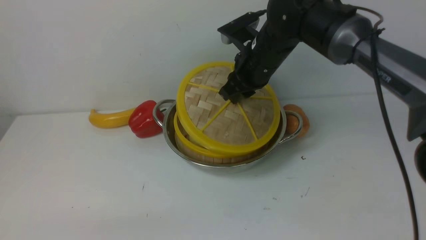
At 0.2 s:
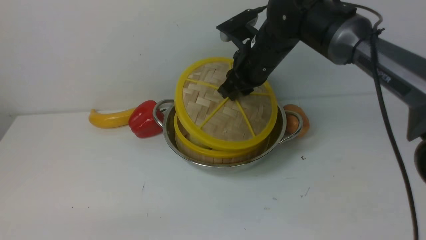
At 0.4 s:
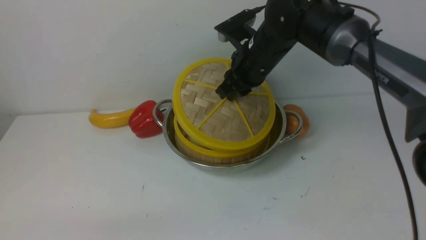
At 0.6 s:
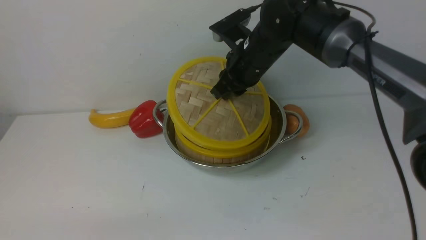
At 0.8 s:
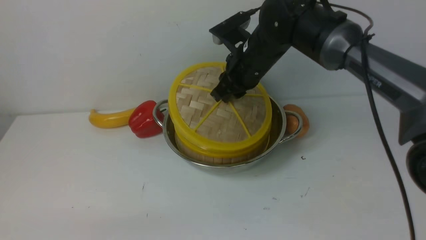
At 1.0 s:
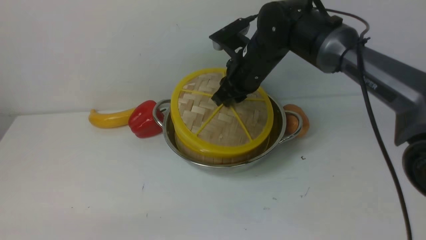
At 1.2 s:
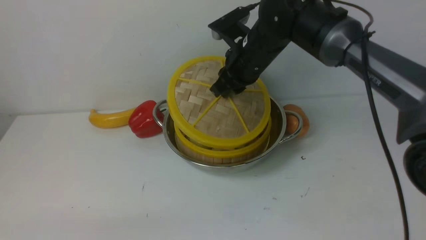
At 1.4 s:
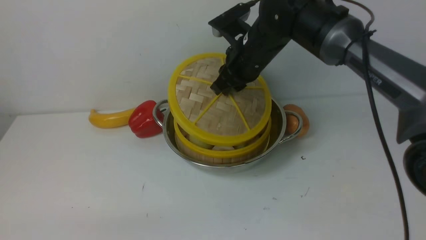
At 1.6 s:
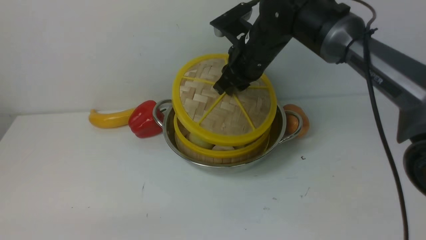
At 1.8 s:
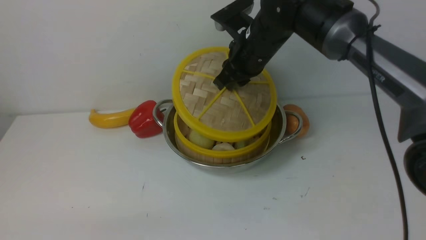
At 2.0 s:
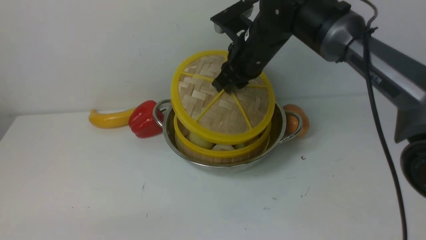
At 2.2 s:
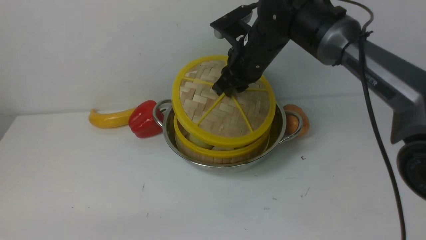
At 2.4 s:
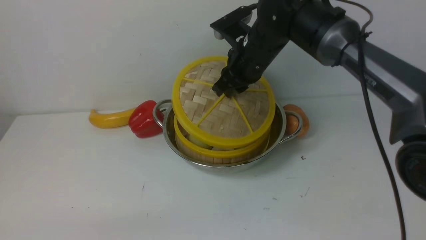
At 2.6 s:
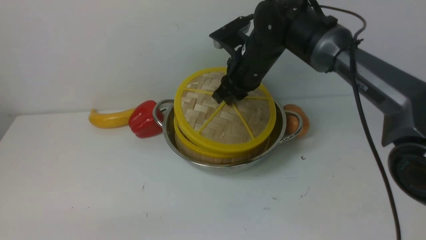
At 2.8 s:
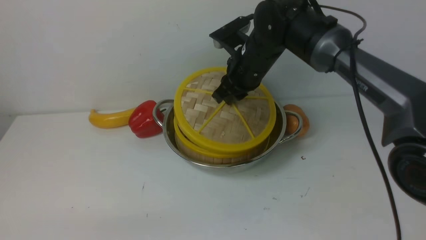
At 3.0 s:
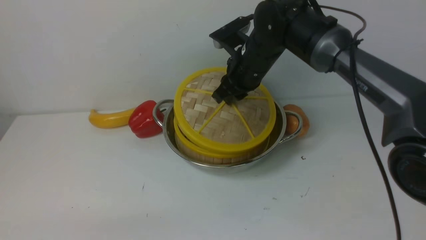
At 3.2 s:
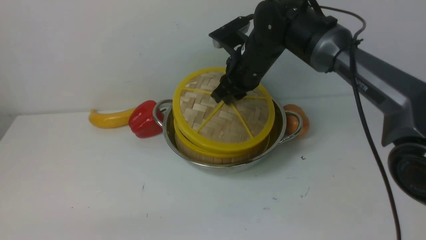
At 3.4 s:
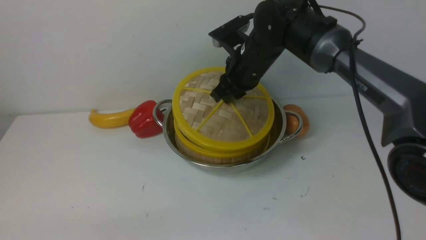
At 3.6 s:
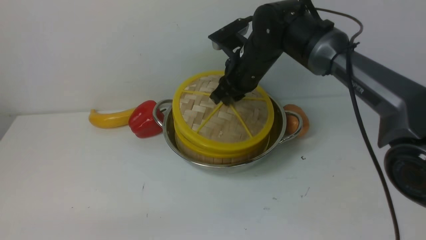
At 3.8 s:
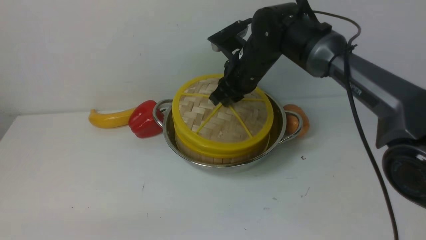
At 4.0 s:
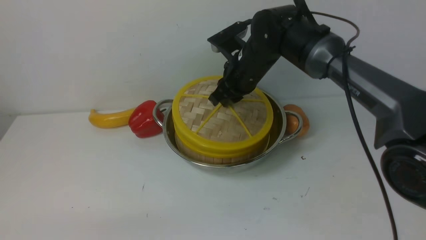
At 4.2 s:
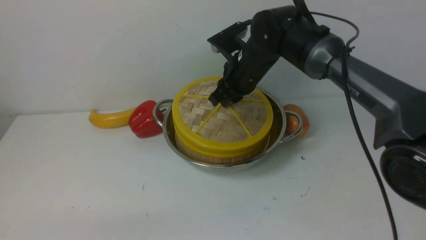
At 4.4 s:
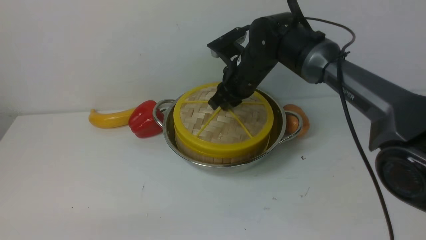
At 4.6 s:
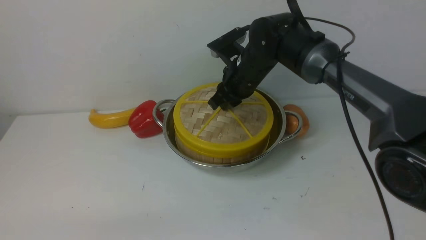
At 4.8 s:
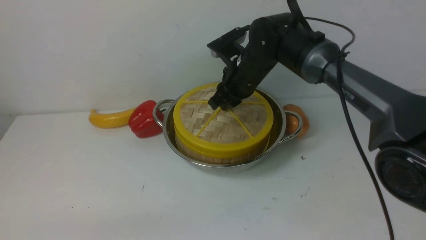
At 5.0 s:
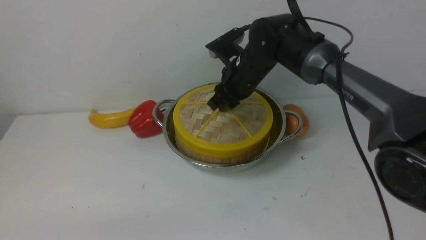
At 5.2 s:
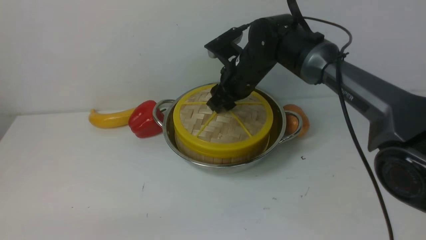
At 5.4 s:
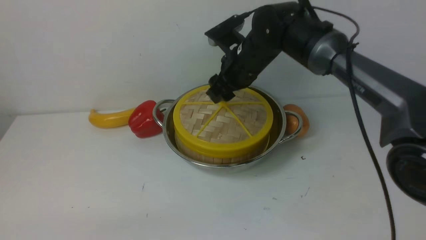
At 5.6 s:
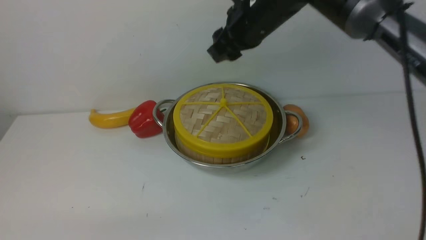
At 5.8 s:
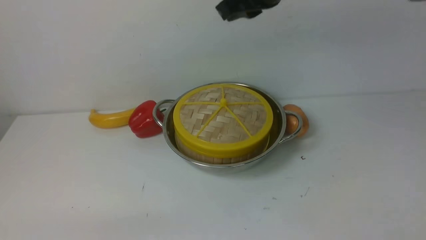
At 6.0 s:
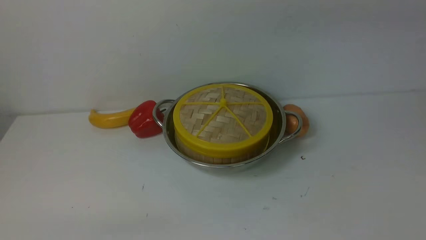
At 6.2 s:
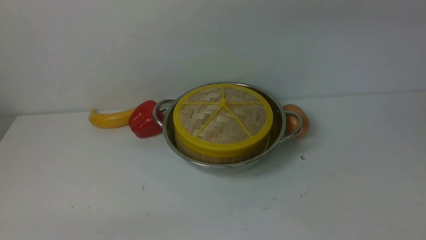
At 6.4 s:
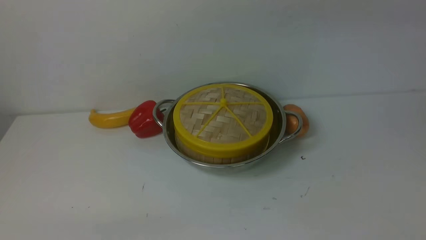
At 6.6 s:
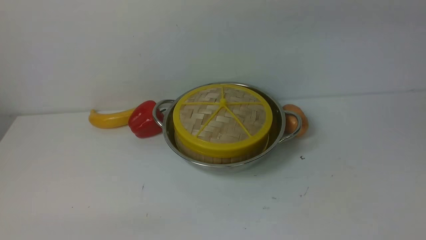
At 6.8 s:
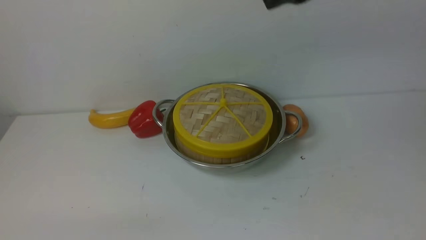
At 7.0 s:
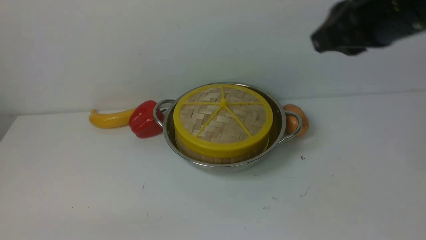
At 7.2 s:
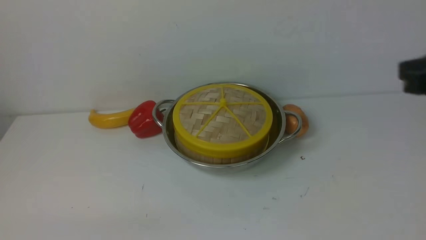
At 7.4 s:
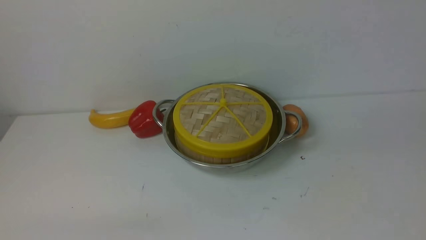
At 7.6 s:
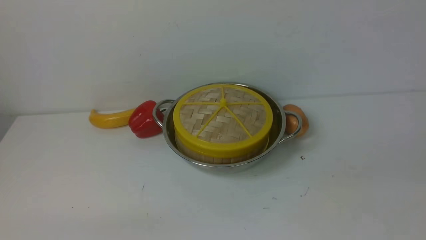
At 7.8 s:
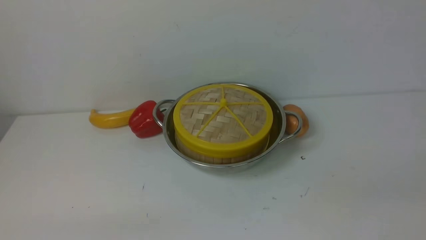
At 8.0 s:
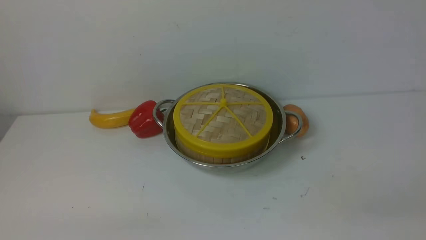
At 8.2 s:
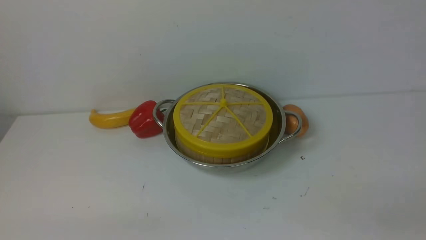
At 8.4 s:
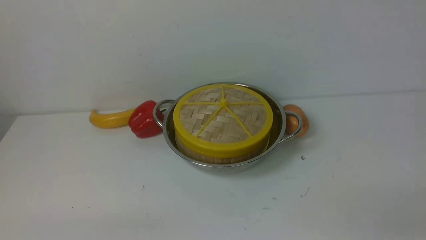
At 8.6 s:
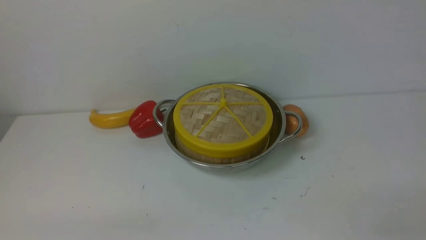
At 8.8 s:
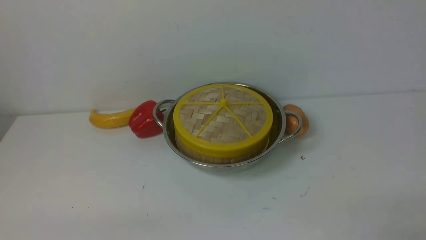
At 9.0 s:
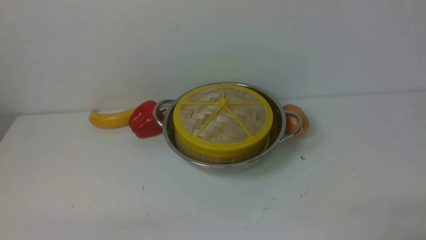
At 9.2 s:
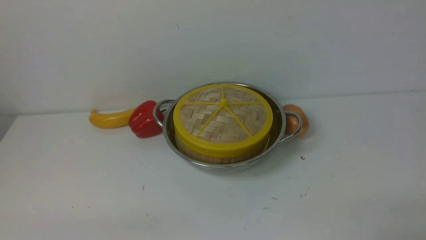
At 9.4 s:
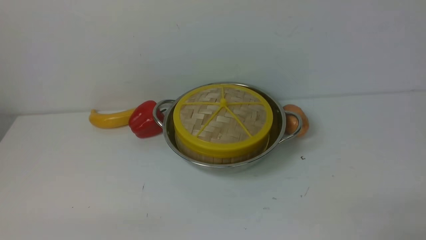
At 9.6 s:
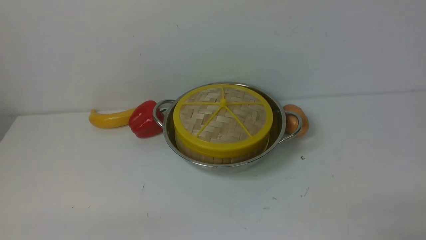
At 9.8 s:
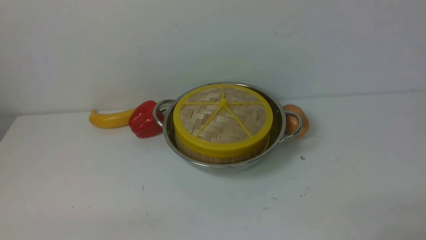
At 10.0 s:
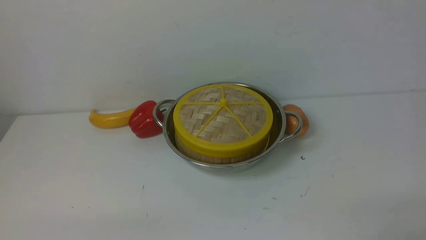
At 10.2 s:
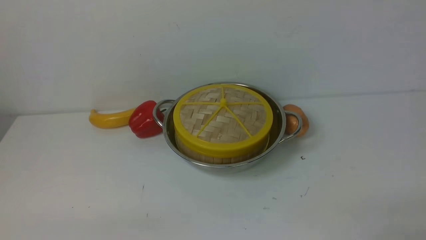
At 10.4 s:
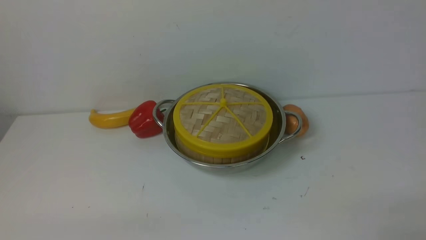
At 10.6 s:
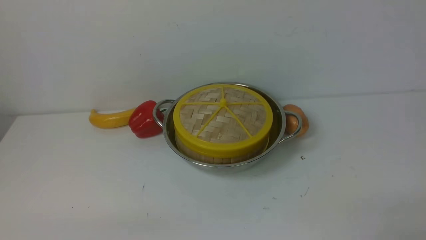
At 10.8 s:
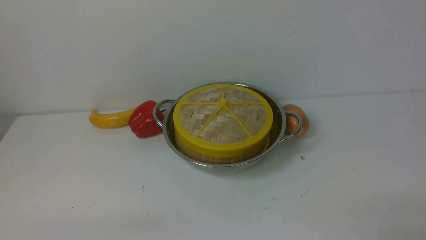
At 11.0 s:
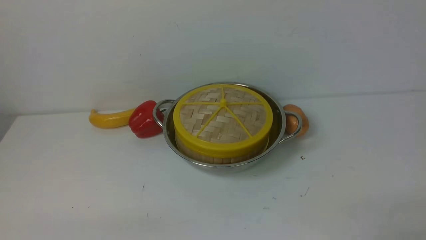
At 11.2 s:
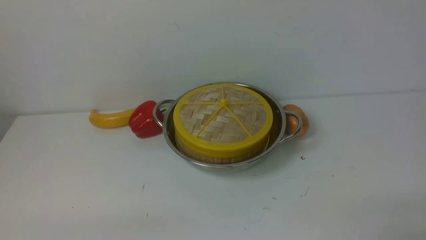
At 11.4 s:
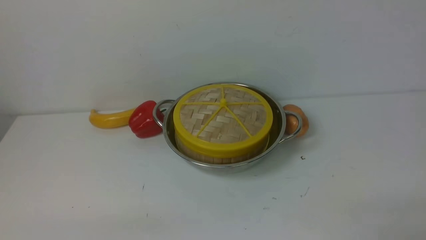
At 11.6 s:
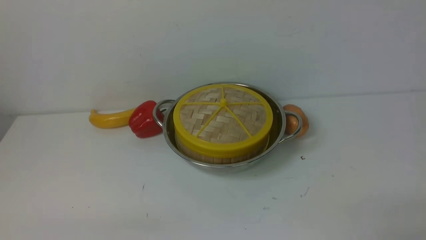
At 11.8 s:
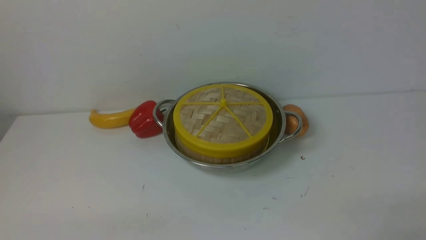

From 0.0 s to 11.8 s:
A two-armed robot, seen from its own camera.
Task of the whole recording: place the steamer in the pot on the white table, and put the lid on the steamer.
Step, from 0.0 s to 5.8 s: use the right arm to place the steamer lid on the steamer.
From 0.0 s to 4.4 s: The grippers move only a little.
From 4.4 s to 6.0 s: The right gripper moves upward, about 20 cm, and opens, then closes once more.
From 6.0 s to 7.4 s: The right gripper is displaced to the right and backward by about 25 cm.
From 10.4 s to 11.8 s: Both grippers stay put.
